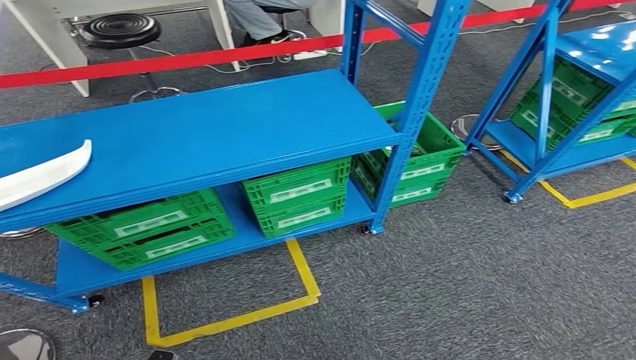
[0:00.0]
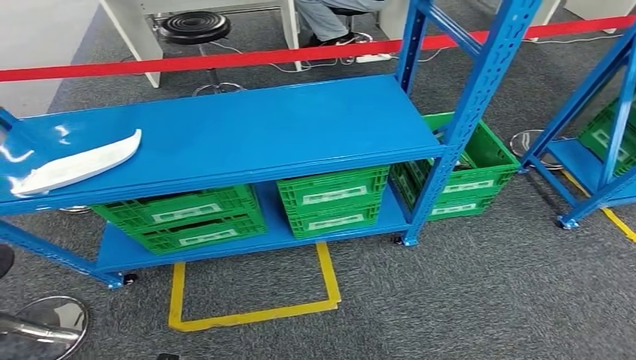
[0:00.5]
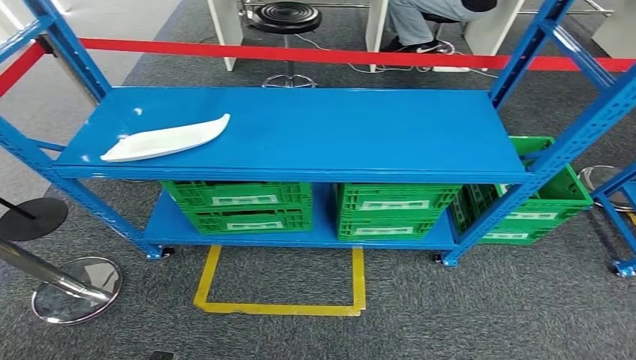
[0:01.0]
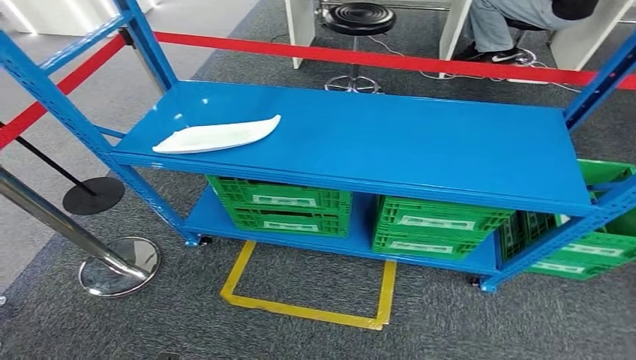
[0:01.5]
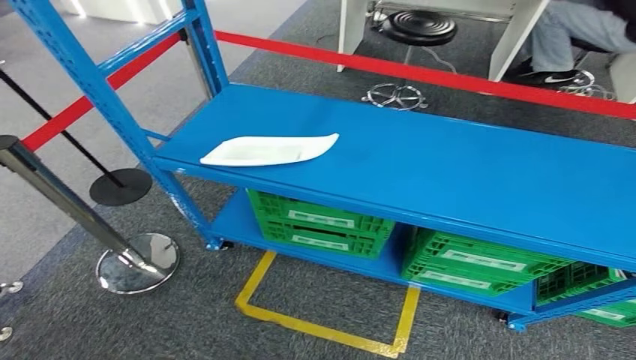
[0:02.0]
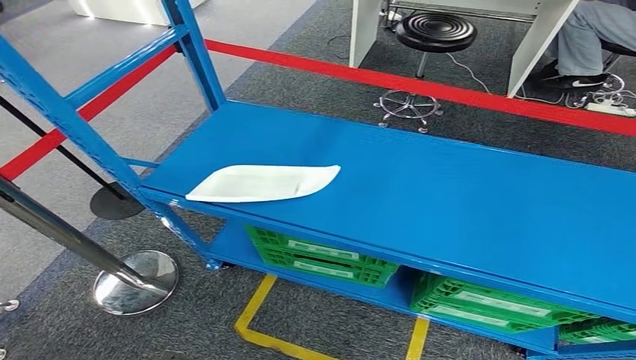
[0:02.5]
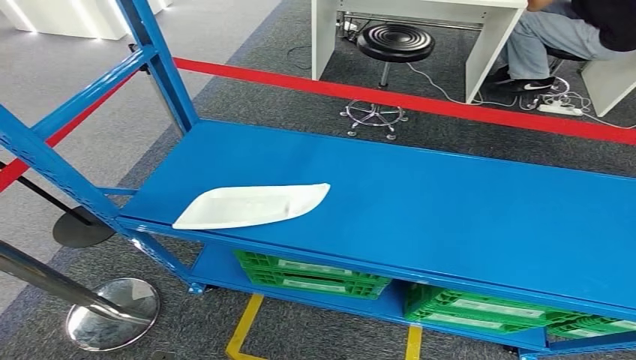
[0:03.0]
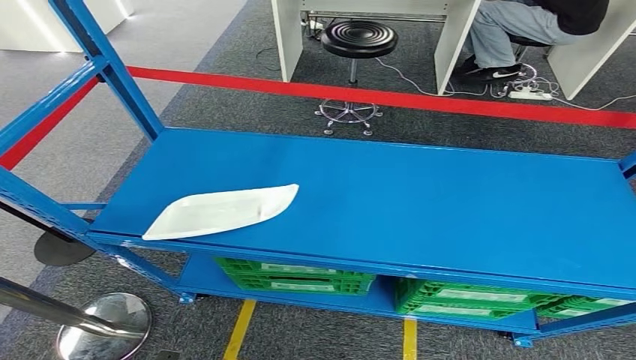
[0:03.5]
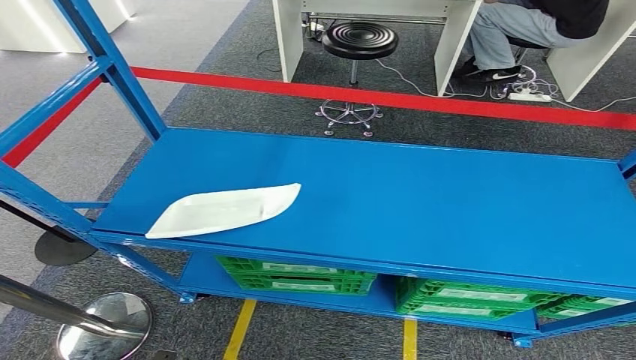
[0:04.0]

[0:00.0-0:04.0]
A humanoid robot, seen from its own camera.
Step, 0:00.0 to 0:04.0: Return to the initial position at the workbench.
